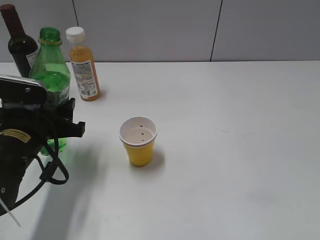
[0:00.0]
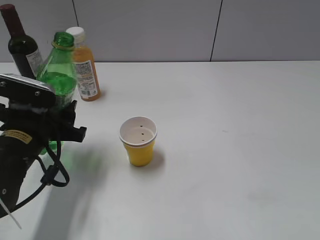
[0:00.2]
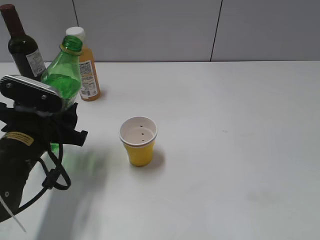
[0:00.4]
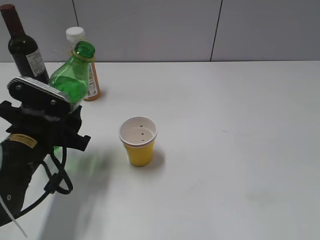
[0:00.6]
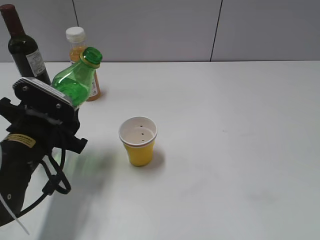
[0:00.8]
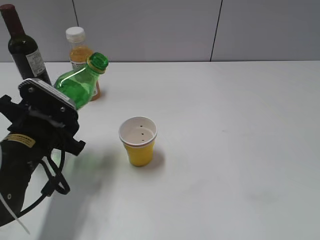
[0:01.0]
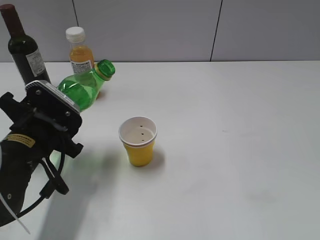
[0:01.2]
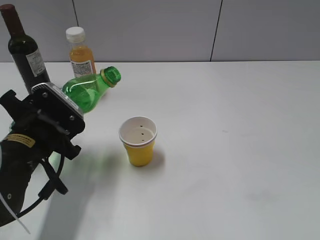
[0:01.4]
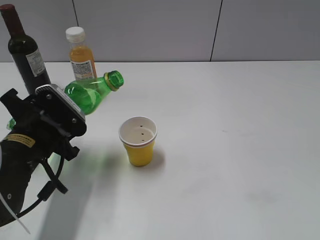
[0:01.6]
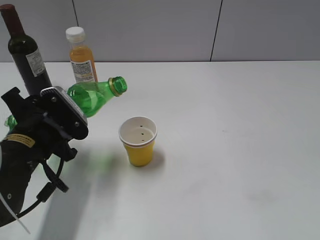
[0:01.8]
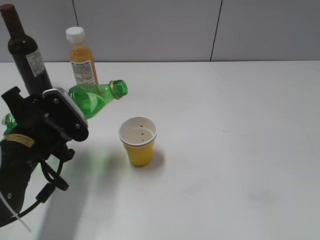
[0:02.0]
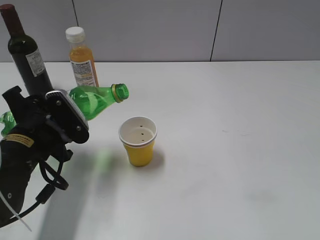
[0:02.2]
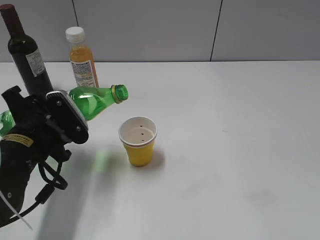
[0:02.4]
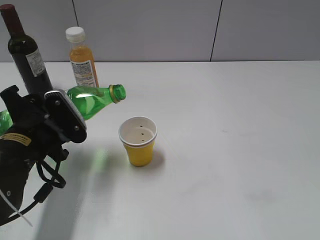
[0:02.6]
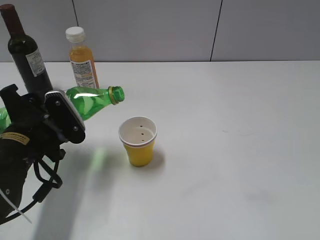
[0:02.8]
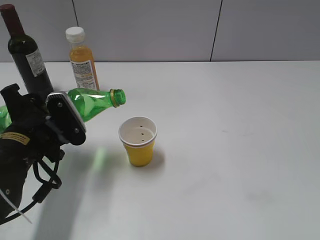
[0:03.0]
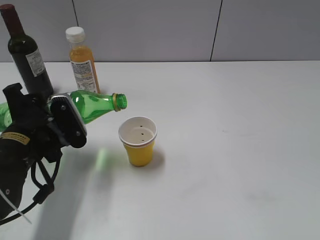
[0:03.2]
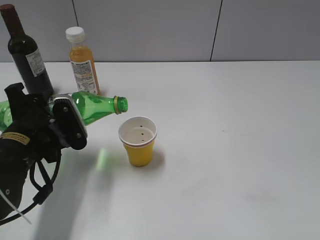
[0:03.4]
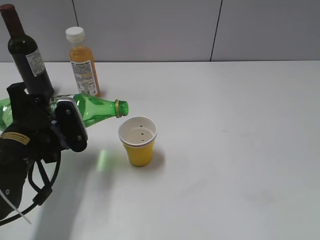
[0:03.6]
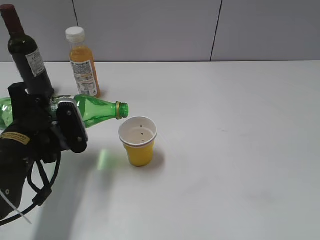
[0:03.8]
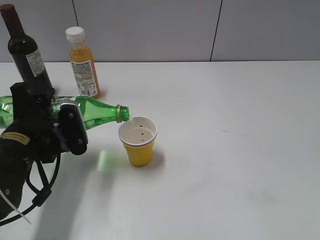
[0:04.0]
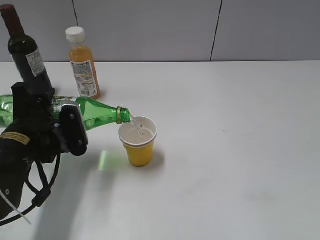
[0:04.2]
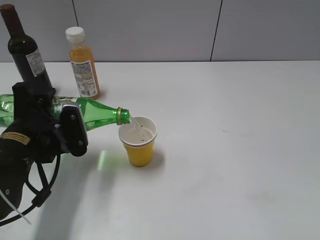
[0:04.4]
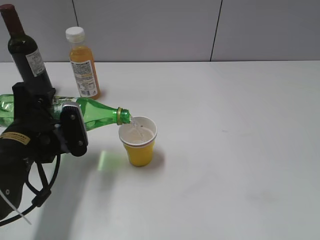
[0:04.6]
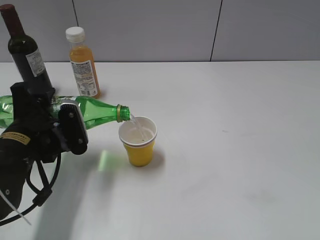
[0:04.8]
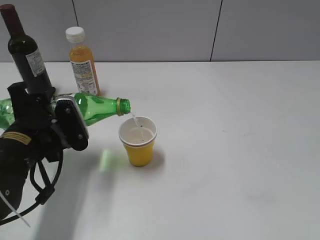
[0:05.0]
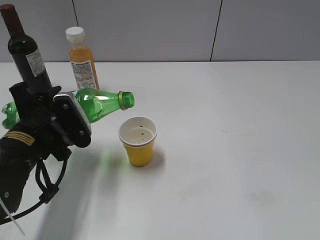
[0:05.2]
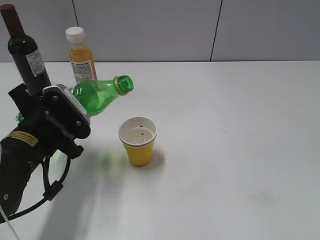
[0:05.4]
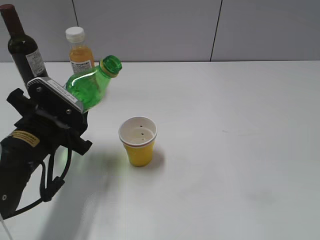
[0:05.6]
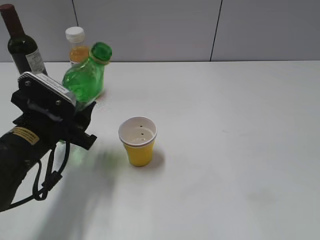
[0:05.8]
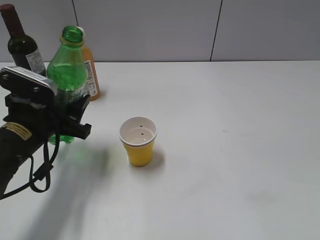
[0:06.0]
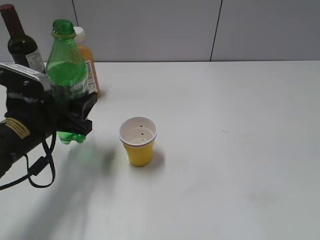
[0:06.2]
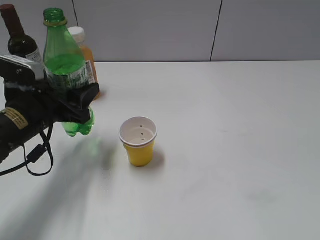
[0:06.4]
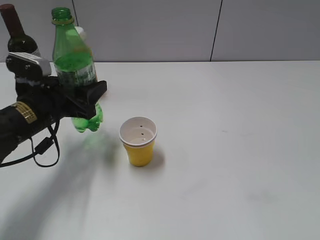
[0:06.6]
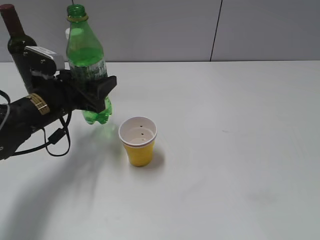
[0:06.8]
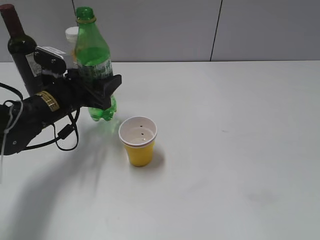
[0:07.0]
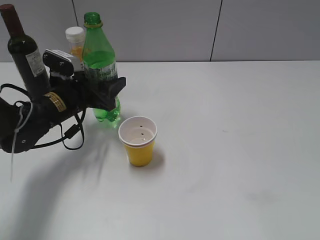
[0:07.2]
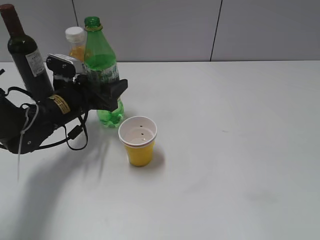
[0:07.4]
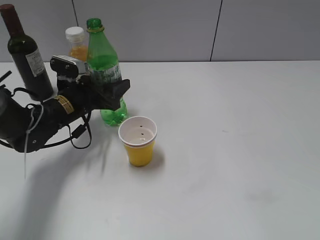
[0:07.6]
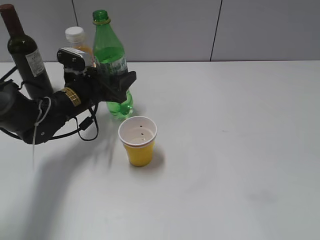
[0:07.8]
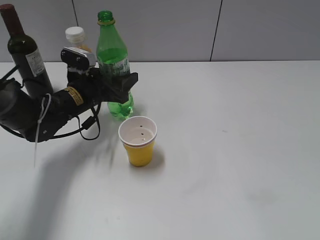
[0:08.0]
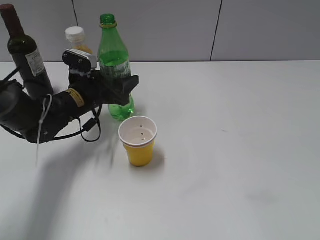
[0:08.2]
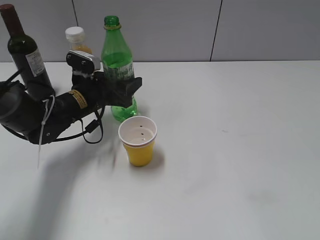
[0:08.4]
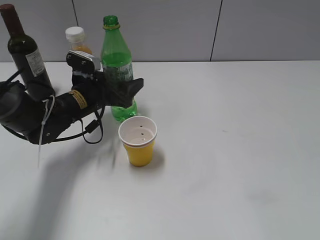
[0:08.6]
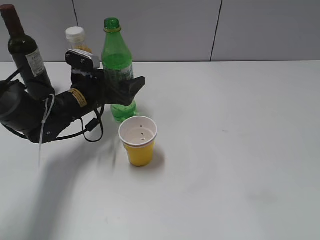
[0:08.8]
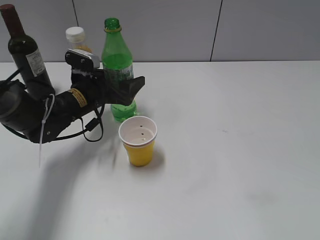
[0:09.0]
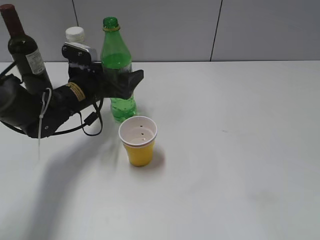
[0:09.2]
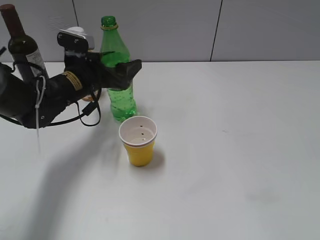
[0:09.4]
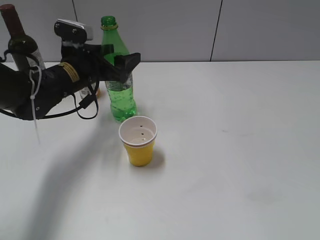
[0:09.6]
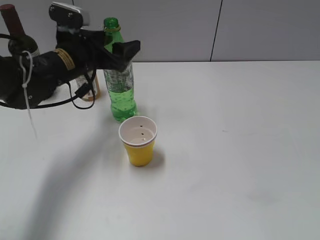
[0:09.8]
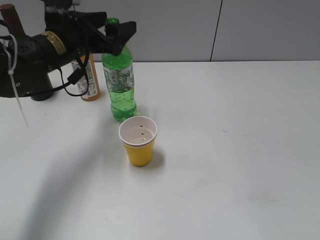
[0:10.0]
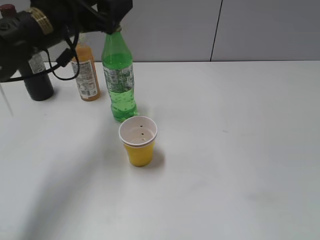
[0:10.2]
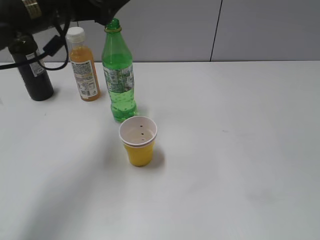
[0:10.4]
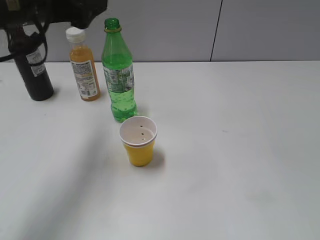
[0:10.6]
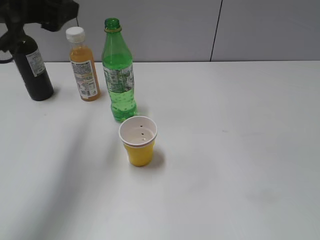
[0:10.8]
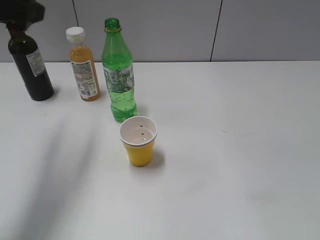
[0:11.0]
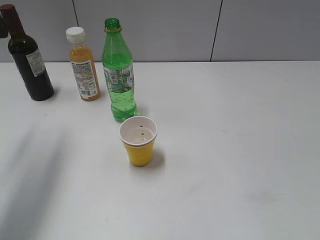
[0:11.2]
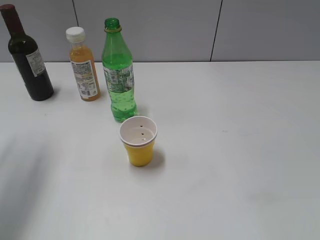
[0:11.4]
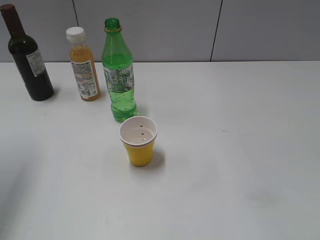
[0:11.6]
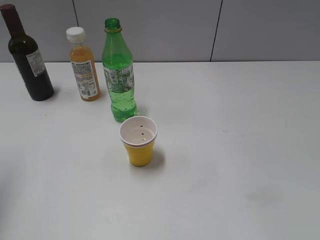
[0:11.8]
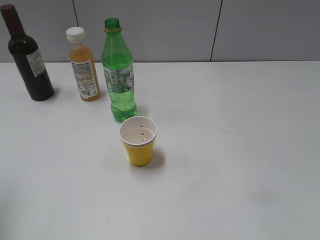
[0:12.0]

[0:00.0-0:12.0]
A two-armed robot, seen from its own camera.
Step, 0:00.0 to 0:05.2: Pour the sprite from bottle to cup with left gripper.
Step, 0:05.6 to 0:10.0: Place the sprite bottle on the table with left gripper.
0:01.6 to 0:03.0: There are only small adjustments of the grippers.
0:03.0 to 0:04.4: The grippers stay close to where they were, moving slightly.
0:06.0 to 0:07.6: The left gripper moves forward, approximately 10 cm.
0:07.6 to 0:09.0: The left gripper opens.
0:09.0 to 0:10.4: The left gripper travels upward by roughly 20 cm.
0:10.4 to 0:12.0: The left gripper goes about 25 cm to the left and backward.

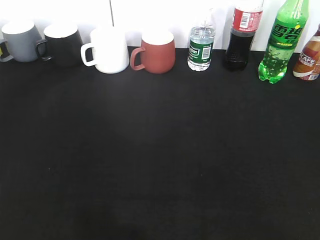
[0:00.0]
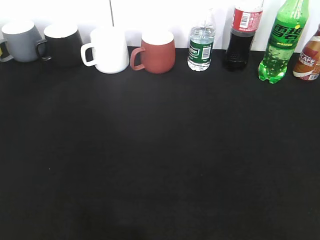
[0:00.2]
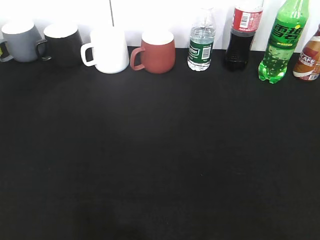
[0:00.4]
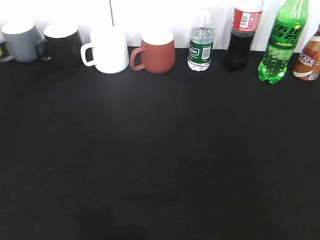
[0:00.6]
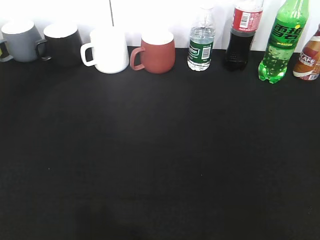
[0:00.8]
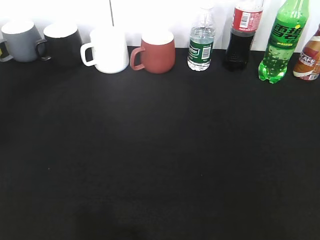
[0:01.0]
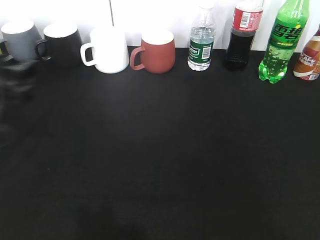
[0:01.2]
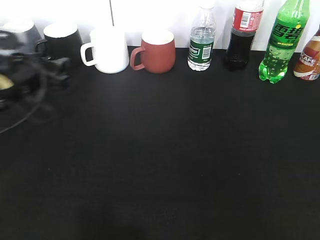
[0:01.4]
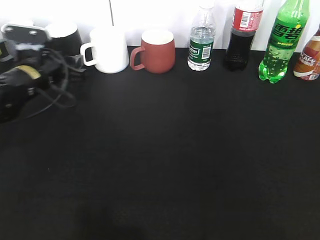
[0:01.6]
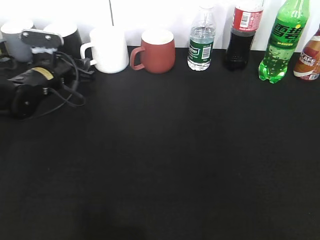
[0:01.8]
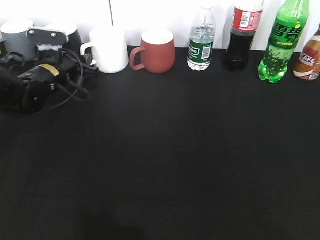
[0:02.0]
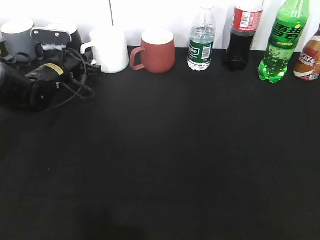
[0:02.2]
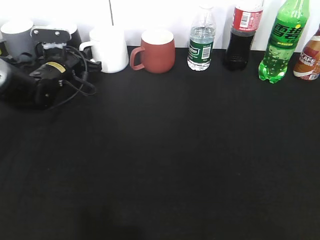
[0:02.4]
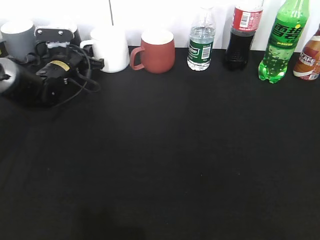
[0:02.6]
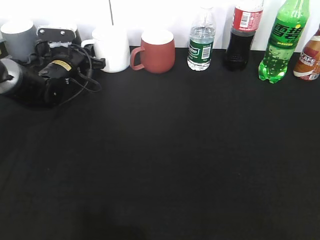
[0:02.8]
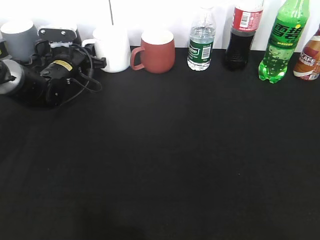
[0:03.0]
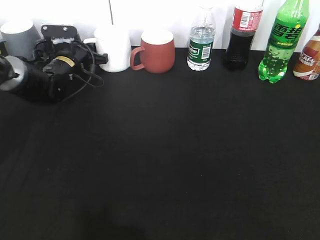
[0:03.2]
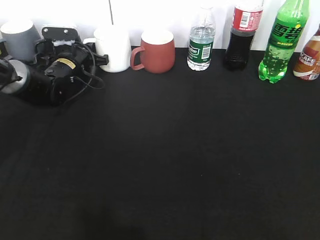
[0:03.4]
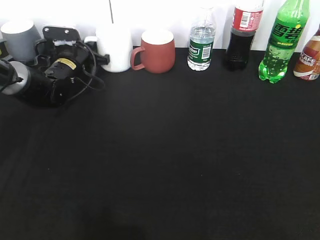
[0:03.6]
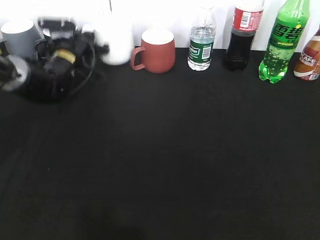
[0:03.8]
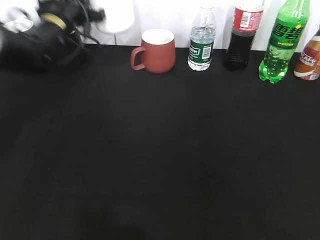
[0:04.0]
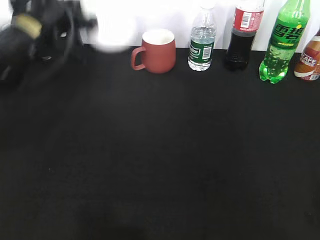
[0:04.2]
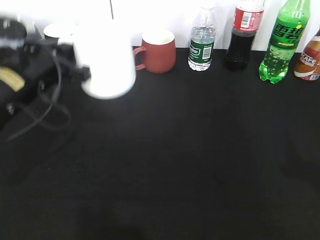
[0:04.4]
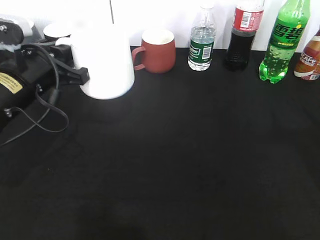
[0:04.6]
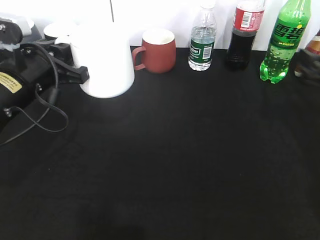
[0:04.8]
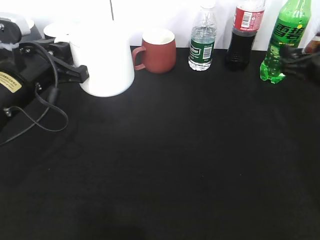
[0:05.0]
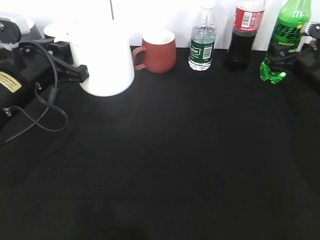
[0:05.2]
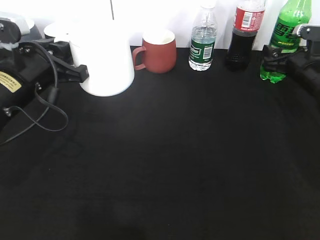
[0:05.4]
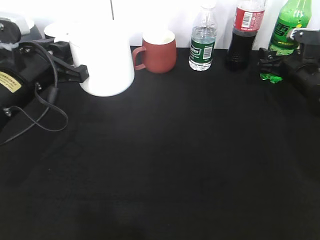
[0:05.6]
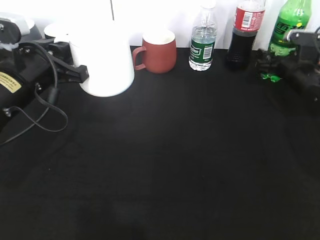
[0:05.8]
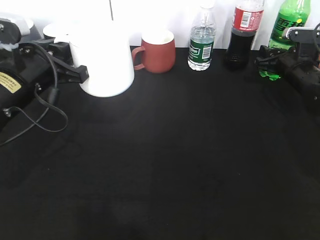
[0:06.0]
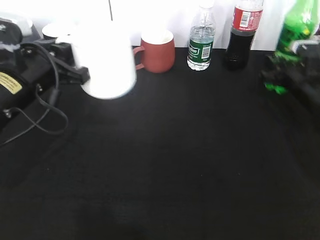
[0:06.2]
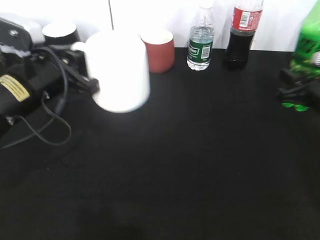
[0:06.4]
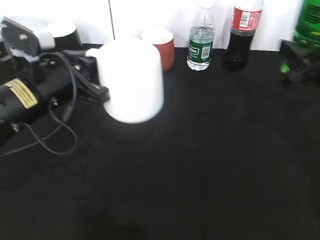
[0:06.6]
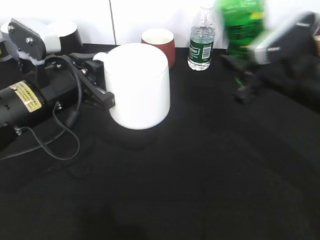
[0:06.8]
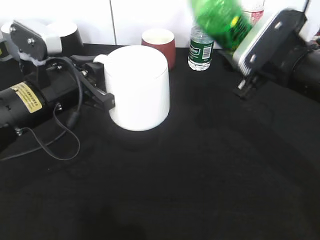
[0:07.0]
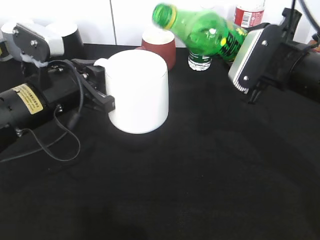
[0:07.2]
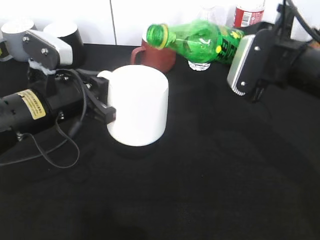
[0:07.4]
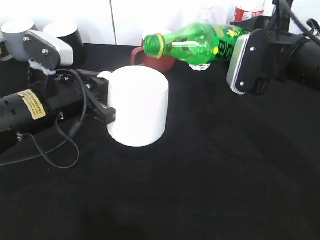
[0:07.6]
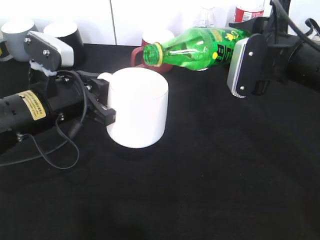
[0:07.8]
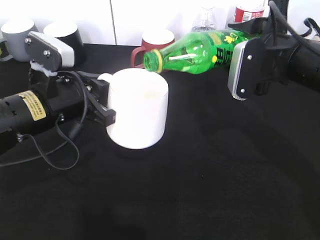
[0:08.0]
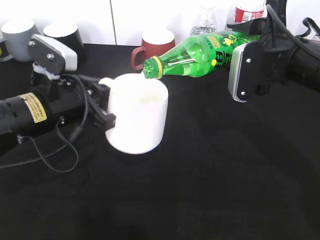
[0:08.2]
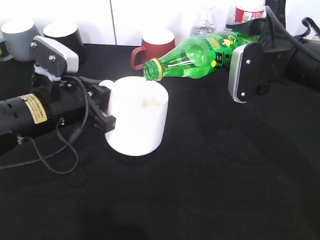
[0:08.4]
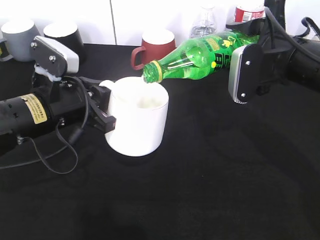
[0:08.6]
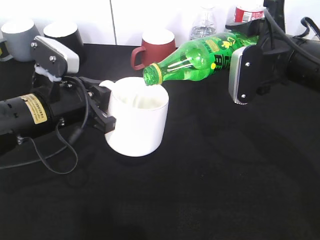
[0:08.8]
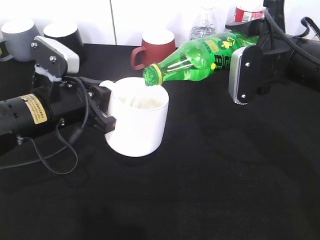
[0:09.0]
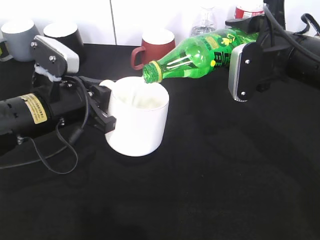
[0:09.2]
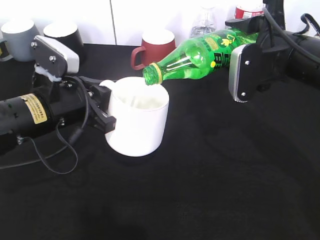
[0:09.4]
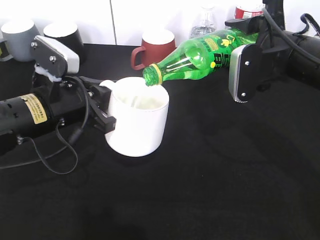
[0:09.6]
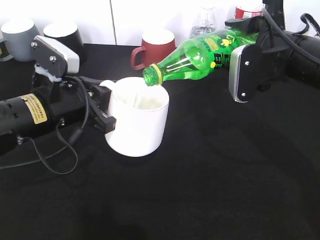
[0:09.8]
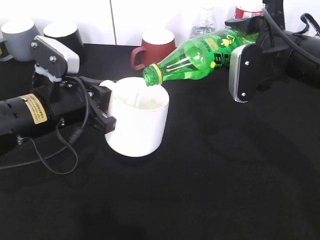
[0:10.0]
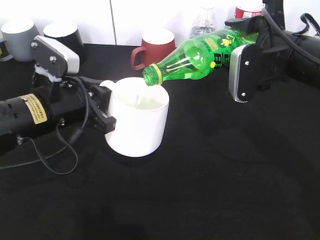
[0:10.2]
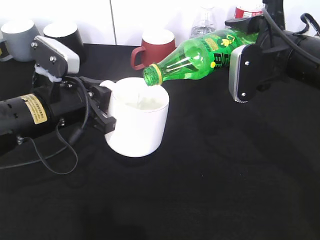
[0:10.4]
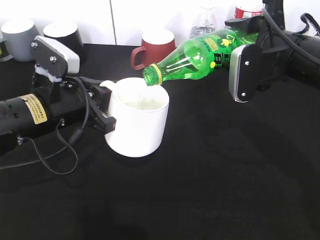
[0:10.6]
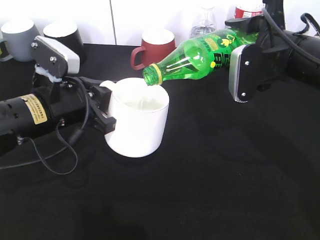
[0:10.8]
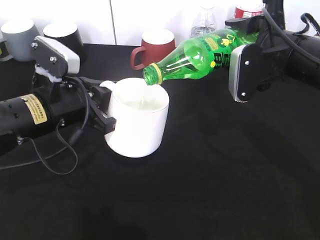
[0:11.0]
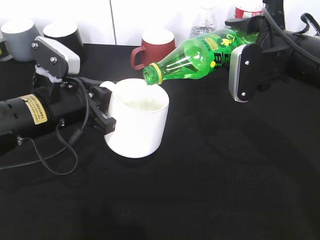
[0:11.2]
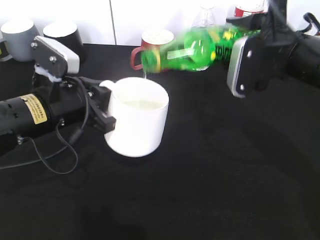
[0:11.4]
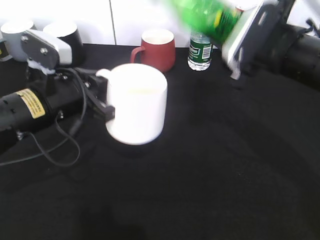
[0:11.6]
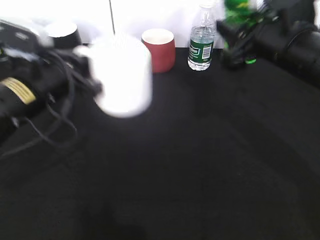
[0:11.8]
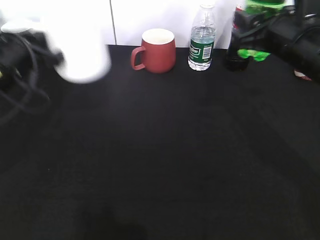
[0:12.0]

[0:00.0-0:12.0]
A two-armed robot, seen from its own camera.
Step, 0:00.0 to 0:03.4: Grasp the white cup with left gripper.
Step, 0:03.6 to 0:04.6: Lift the white cup with left gripper.
Step, 0:04.8 to 0:05.8: Grasp the bottle with sprite with right gripper.
Step, 0:06.2 to 0:11.4: Pour the sprite from bottle to cup with right gripper.
0:00.0 to 0:01.6: The left gripper shifts approximately 40 cm forward.
0:01.6 to 0:03.0: The left gripper shifts about 10 cm forward, and closes its fingers.
0:03.0 to 0:04.4: The right gripper heads forward, covering roughly 10 cm, while the left gripper shifts some 20 cm backward and upward, and closes its fingers.
0:04.4 to 0:06.0: The right gripper shifts about 35 cm forward and downward, and closes its fingers.
0:06.0 to 0:07.6: The right gripper shifts roughly 20 cm backward, upward and to the left.
0:07.6 to 0:09.0: The grippers stay close to where they were, moving slightly.
0:09.0 to 0:10.4: Both grippers stay put.
0:10.4 to 0:12.0: The left gripper goes roughly 10 cm to the left and forward.
